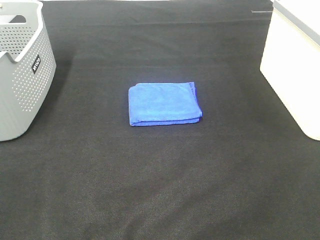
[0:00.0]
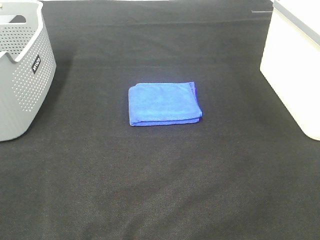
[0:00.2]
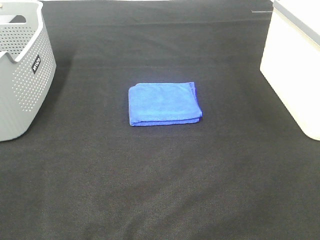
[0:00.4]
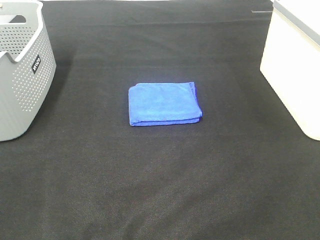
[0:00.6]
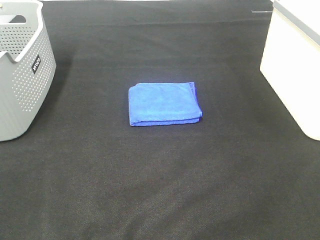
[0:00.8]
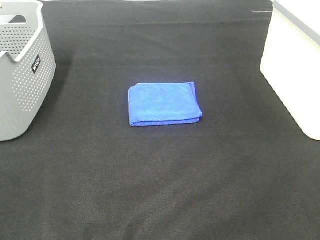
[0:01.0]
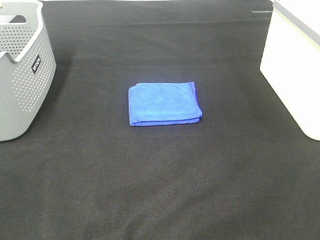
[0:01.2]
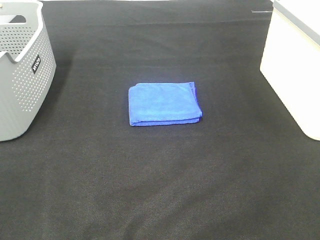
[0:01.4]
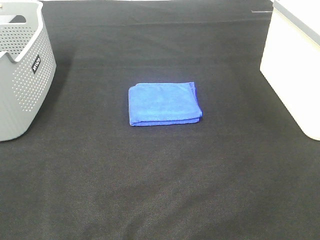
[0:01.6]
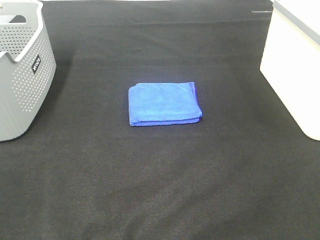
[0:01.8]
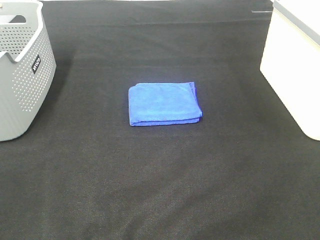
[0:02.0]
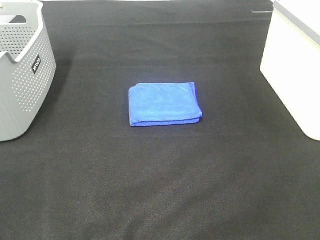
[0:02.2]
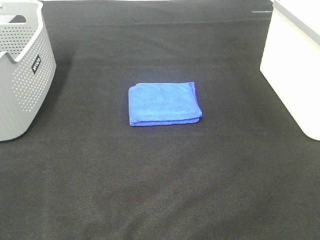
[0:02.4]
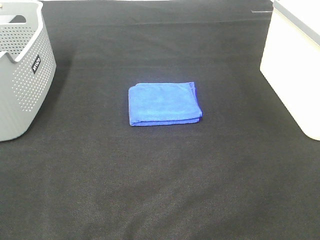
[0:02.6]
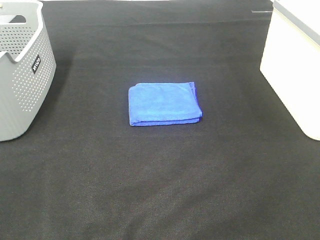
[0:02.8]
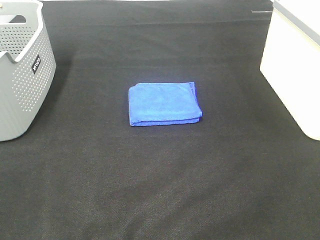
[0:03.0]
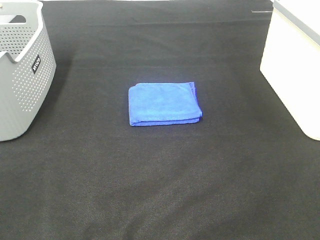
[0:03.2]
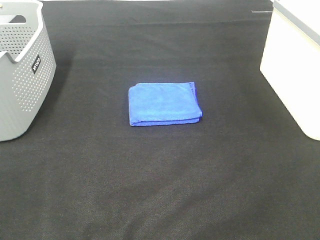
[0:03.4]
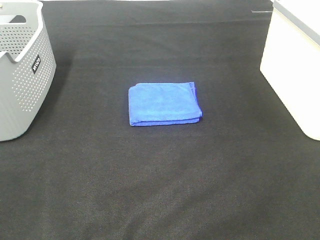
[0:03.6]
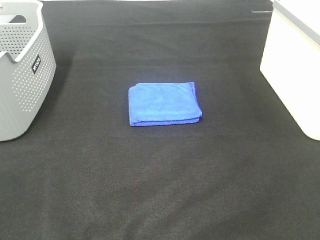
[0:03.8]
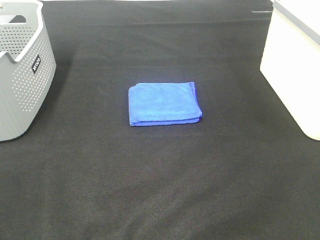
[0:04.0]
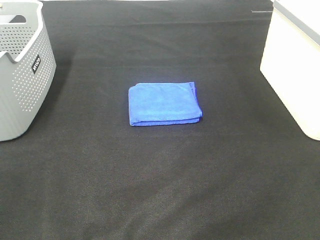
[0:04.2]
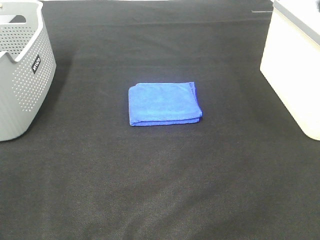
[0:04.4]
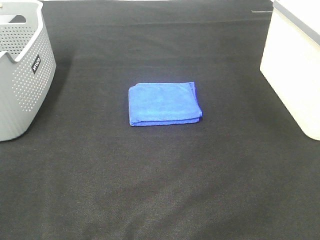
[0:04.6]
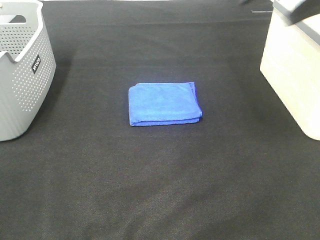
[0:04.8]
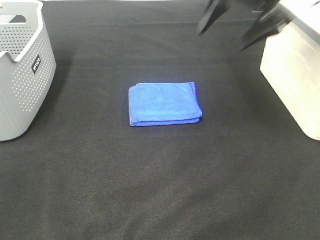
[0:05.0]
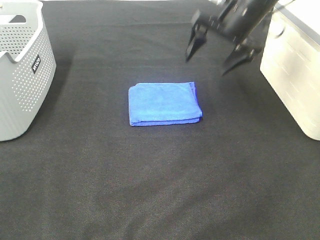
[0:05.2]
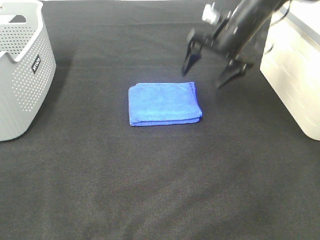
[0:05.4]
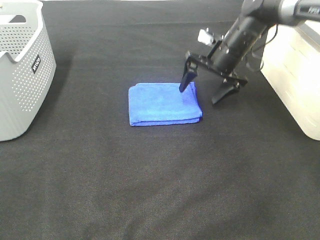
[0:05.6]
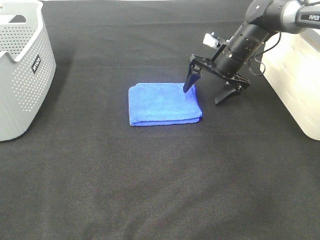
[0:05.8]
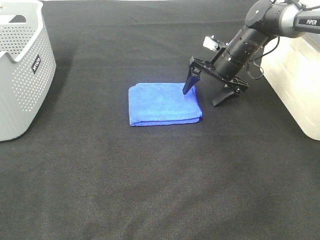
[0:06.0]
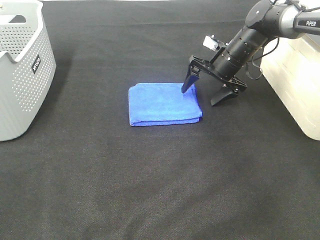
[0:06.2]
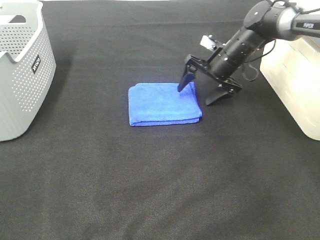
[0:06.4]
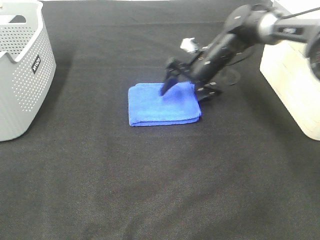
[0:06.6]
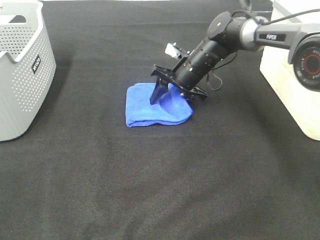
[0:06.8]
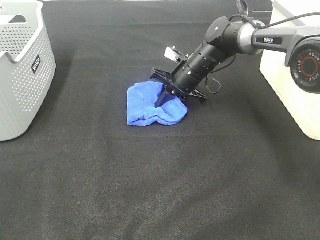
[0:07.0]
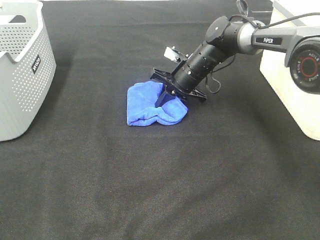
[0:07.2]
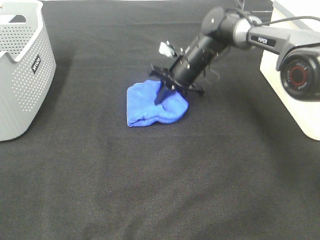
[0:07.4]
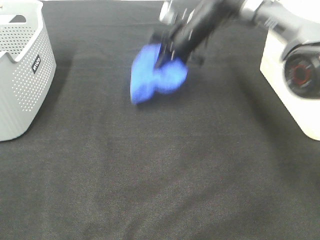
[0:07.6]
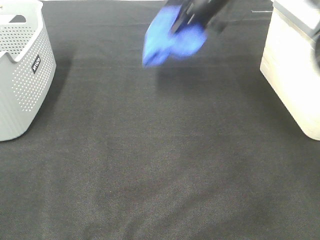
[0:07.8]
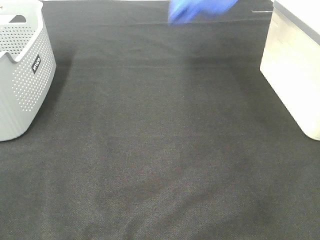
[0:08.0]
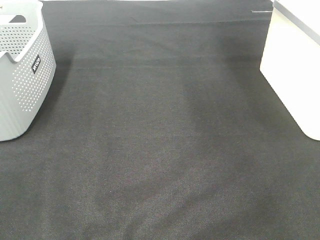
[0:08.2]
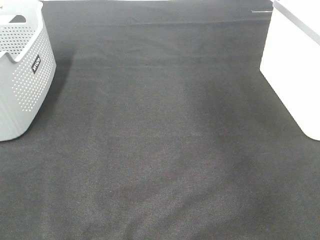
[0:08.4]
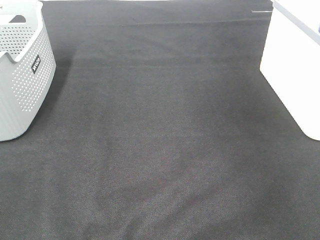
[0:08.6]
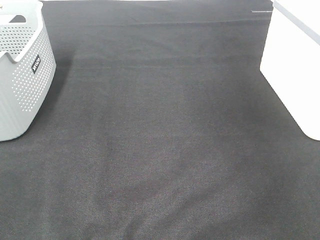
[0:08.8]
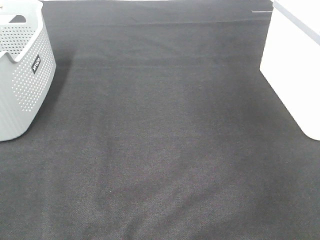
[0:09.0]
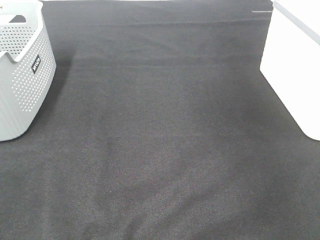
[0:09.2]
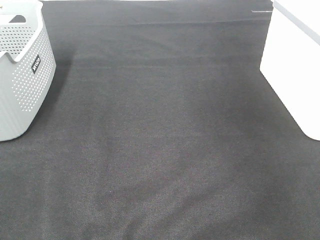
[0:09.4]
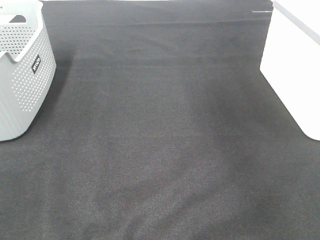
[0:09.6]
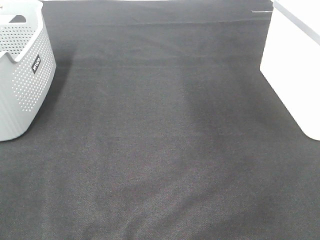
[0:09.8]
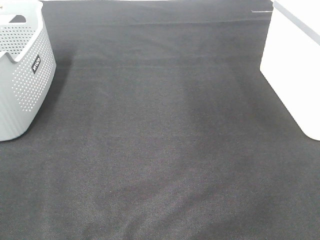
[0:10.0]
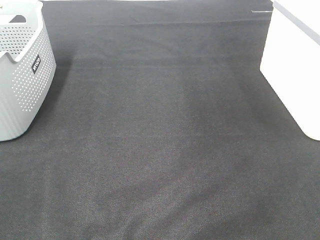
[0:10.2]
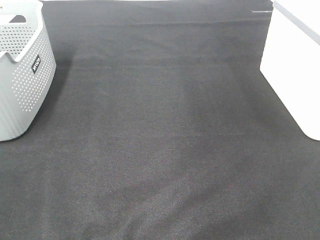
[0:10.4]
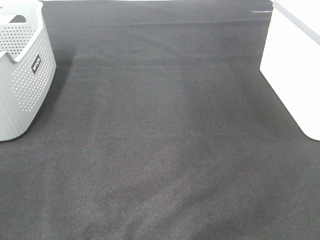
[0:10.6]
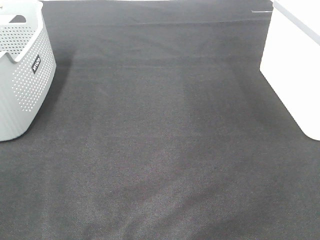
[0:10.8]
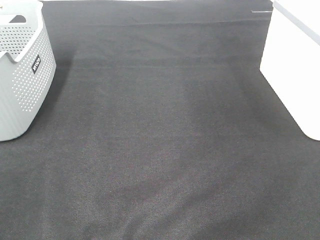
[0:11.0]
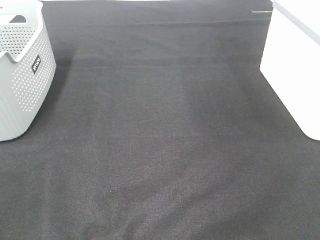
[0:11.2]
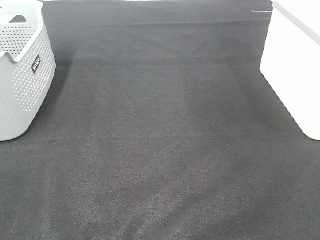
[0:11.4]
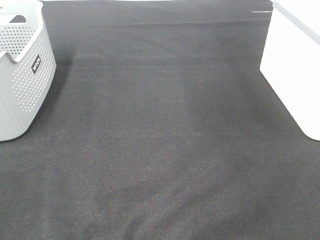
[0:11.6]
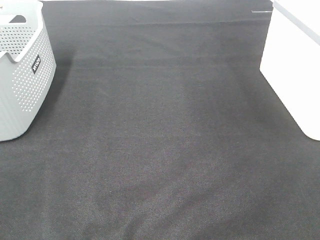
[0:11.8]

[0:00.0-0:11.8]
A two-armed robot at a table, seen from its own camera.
Step, 0:00.0 to 0:07.2: Right hand: grab the folded blue towel.
Step, 0:07.4 to 0:09.0: Right hand: place the blue towel in right basket.
0:00.0 to 0:03.0: Both grippers stay about where they are.
0:04.4 to 0:06.0: The right gripper heads downward and forward, covering approximately 35 cm.
0:06.0 to 0:07.4: The right gripper shifts about 10 cm to the left, and closes.
0:07.4 to 0:08.8: The right gripper shifts approximately 40 cm to the right and upward.

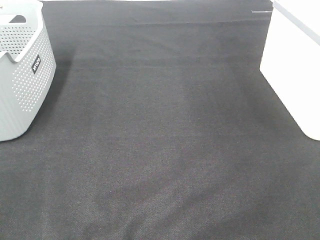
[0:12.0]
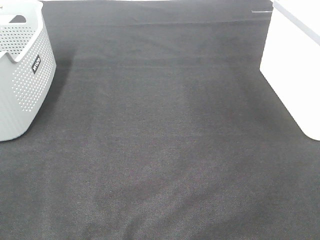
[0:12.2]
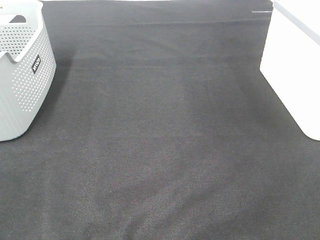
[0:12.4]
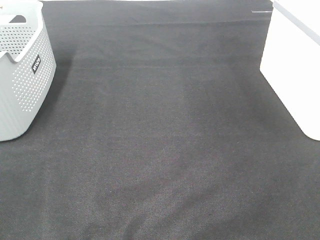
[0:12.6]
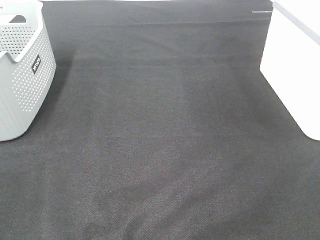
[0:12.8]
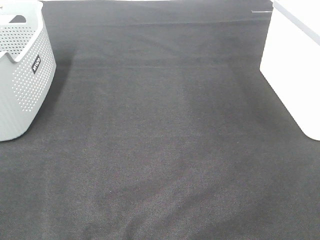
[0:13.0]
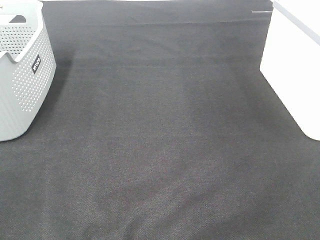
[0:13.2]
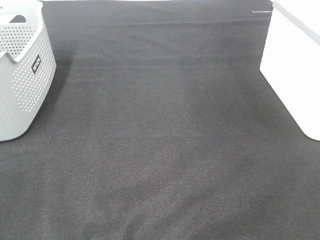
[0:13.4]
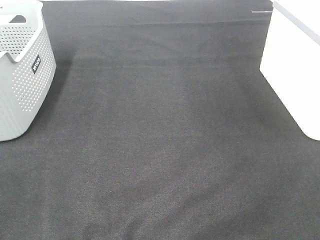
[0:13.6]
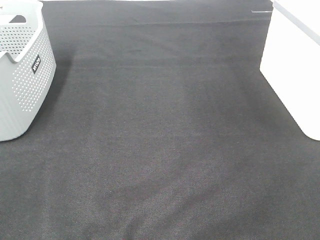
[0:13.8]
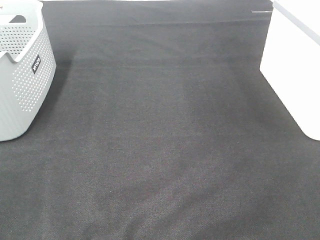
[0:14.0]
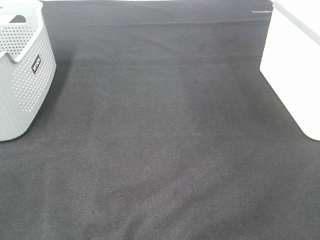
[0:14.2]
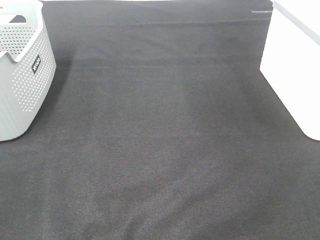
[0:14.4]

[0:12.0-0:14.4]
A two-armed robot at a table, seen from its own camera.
0:12.0 to 0:14.4: The two grippers keep their place.

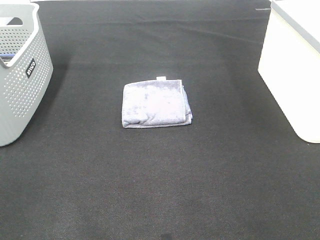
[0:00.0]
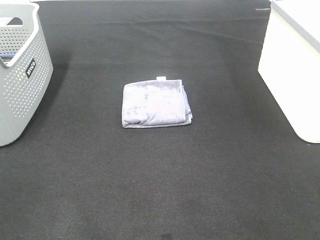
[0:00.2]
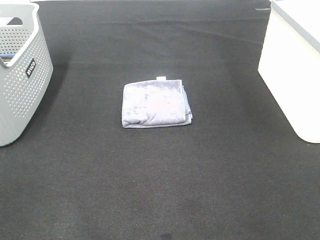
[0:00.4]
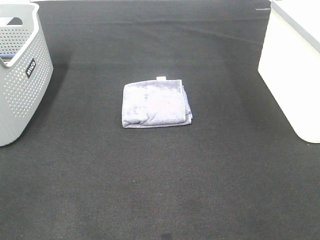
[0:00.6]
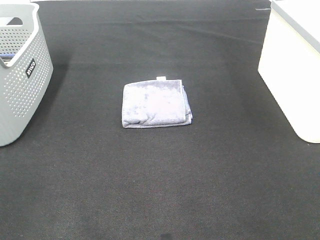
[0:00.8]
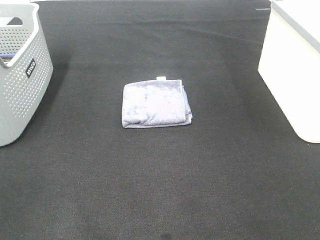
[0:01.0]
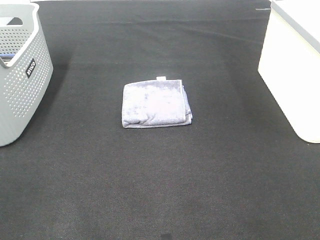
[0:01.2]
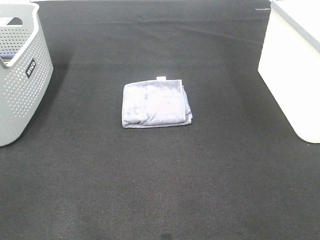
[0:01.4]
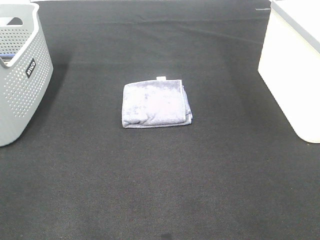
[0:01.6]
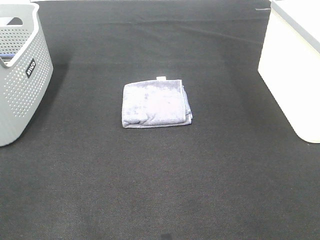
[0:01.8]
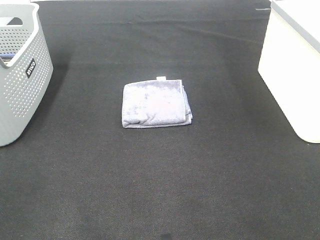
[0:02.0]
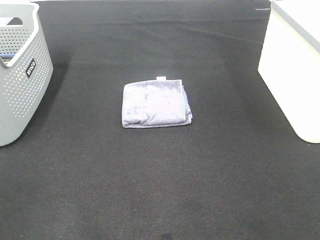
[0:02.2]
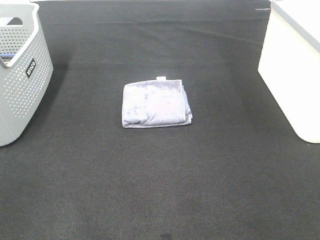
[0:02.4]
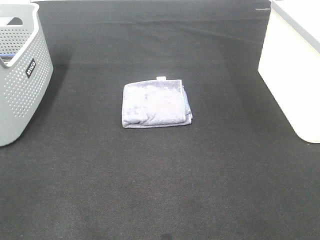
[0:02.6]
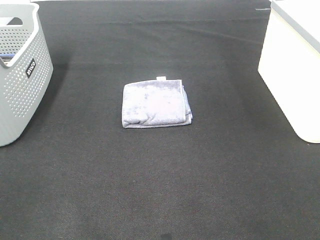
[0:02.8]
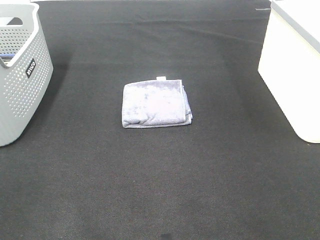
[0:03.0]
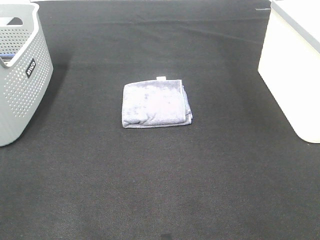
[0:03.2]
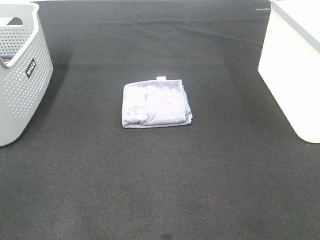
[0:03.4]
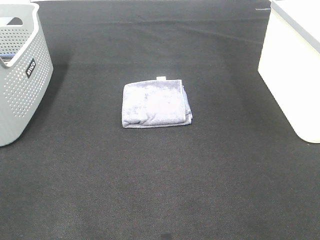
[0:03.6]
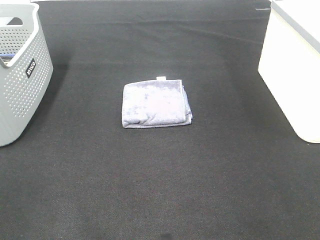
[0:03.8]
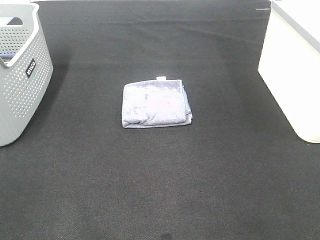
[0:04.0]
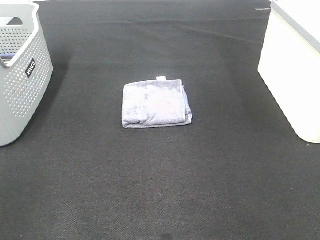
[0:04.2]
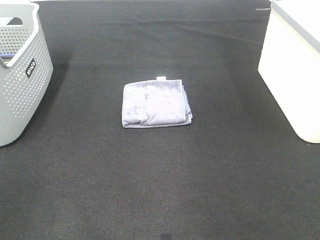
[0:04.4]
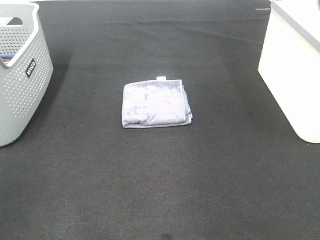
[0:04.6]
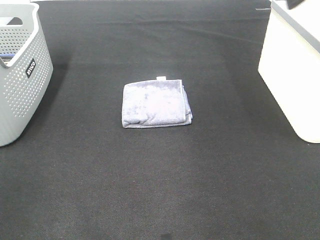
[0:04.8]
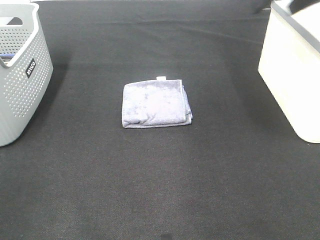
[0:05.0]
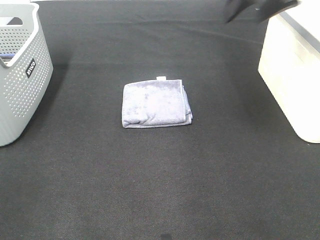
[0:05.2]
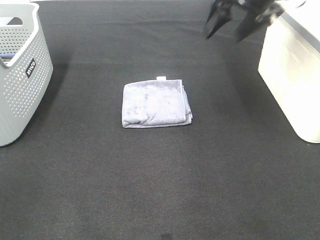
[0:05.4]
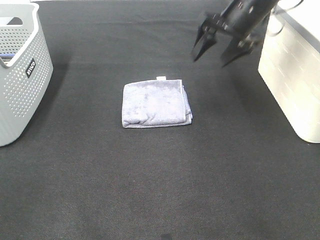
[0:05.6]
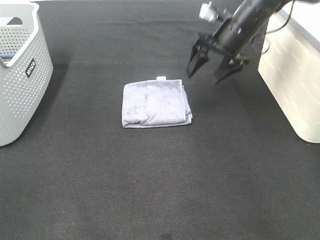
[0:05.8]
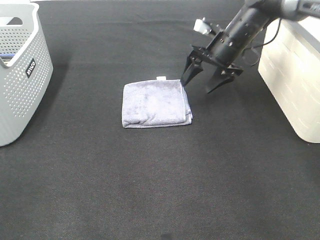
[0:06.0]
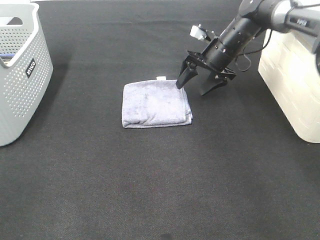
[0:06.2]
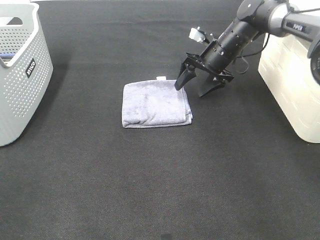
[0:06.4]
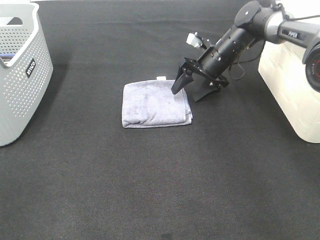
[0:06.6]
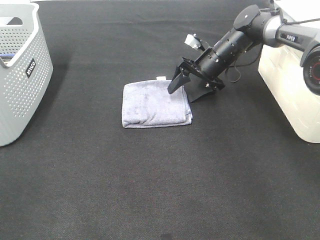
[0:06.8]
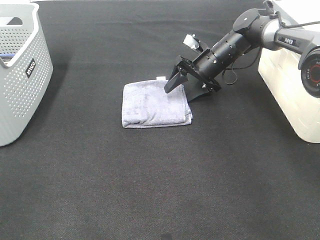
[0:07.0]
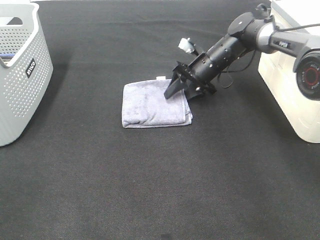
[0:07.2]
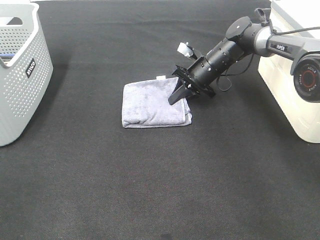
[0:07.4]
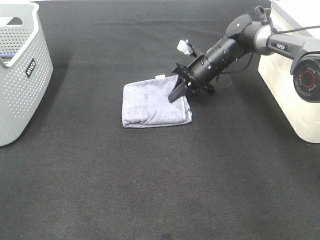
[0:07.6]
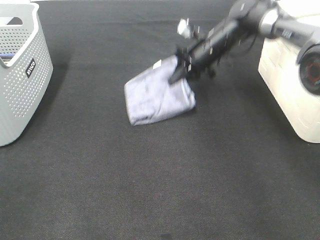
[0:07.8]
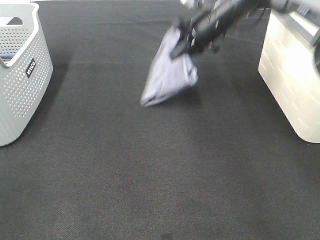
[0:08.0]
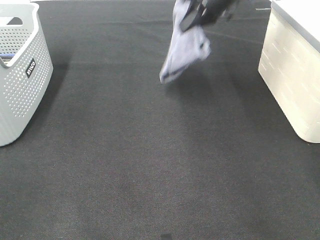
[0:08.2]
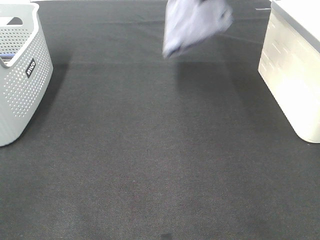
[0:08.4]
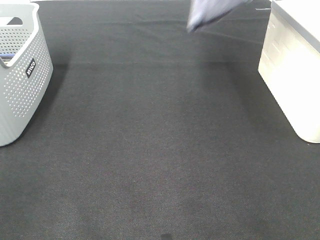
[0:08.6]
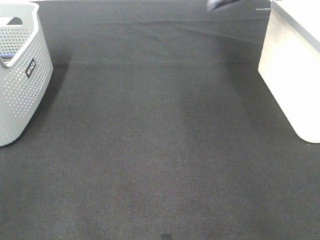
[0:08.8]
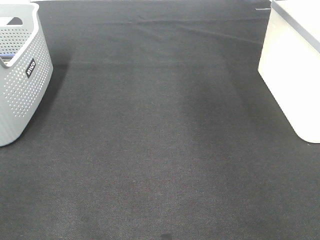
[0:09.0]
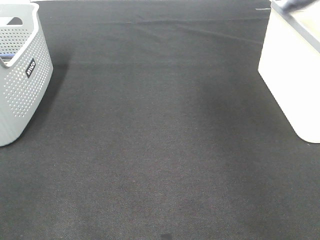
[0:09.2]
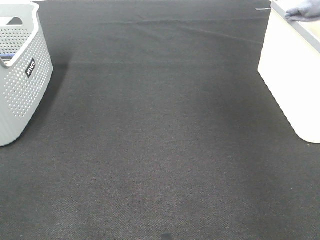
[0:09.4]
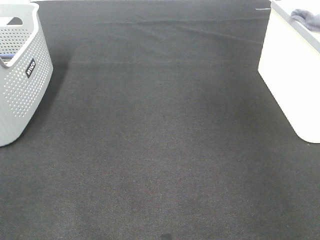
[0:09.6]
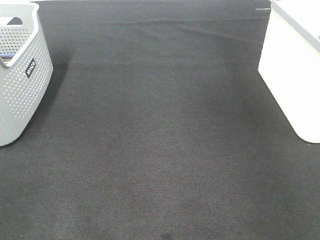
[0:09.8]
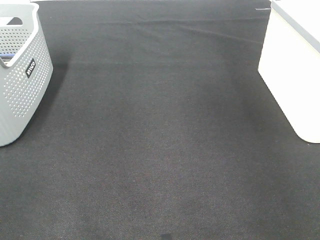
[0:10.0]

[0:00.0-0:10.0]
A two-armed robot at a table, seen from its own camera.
Step, 0:00.0 to 0:07.4: Right hand: grab the folded grey towel.
0:00.0 to 0:02.8: The two grippers keep their place.
0:04.2 to 0:05.8: The right gripper is displaced forward, downward and to the left by some 40 cm.
0:05.8 to 0:07.2: The right gripper moves downward, some 10 cm, and closes.
0:07.2 to 0:08.6: The right gripper travels upward by some 30 cm, and closes up.
0:08.6 to 0:10.0: The right gripper heads to the right, covering roughly 25 cm, and opens.
